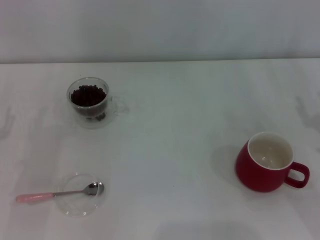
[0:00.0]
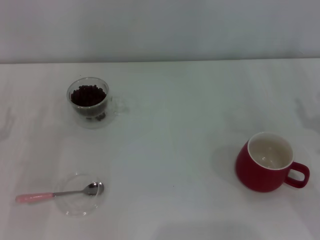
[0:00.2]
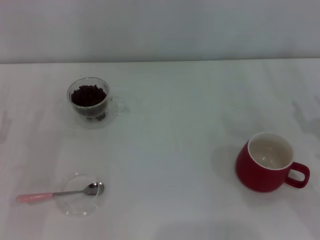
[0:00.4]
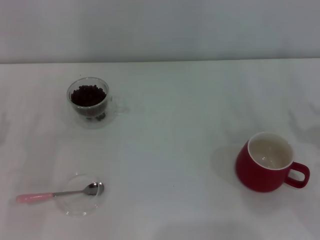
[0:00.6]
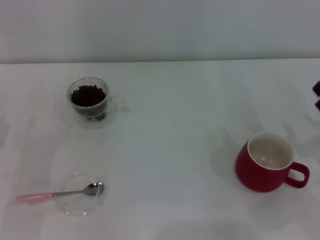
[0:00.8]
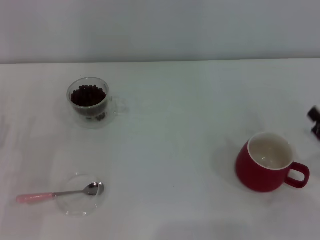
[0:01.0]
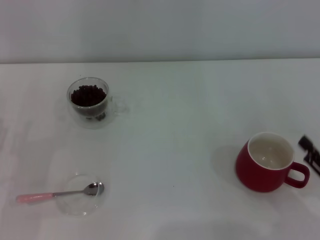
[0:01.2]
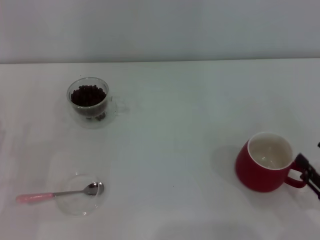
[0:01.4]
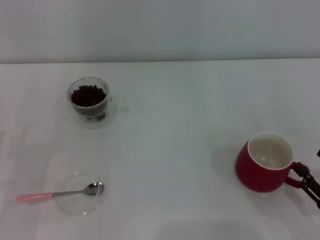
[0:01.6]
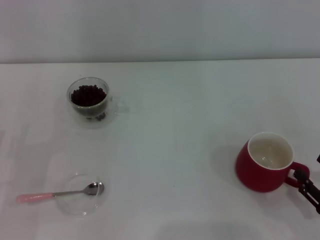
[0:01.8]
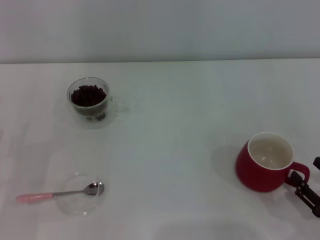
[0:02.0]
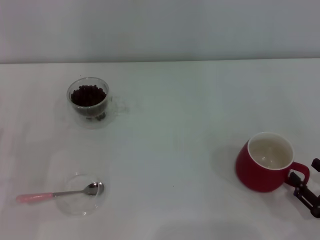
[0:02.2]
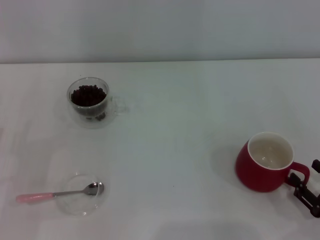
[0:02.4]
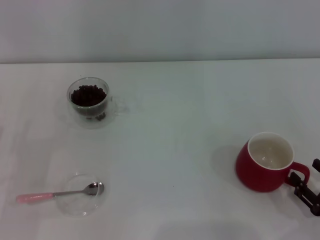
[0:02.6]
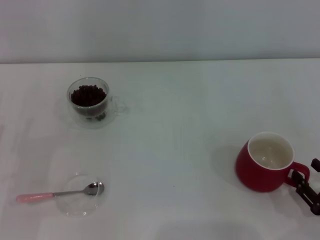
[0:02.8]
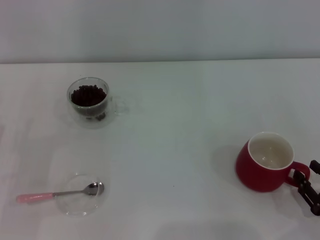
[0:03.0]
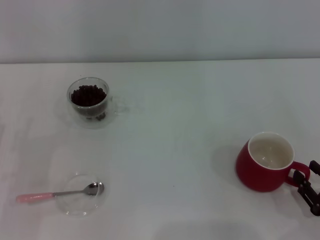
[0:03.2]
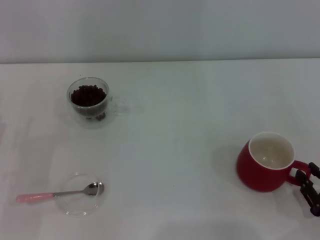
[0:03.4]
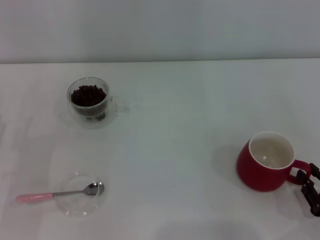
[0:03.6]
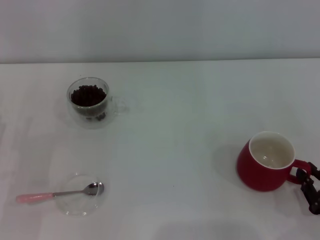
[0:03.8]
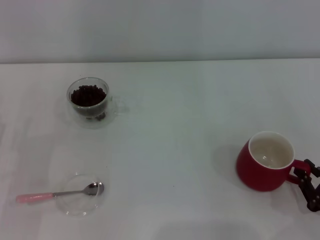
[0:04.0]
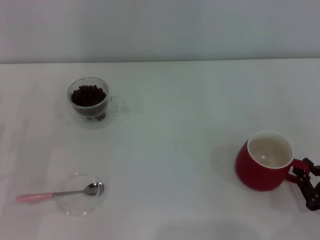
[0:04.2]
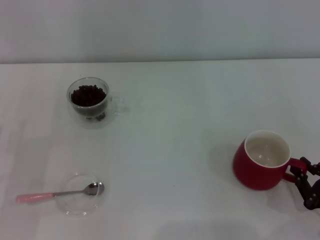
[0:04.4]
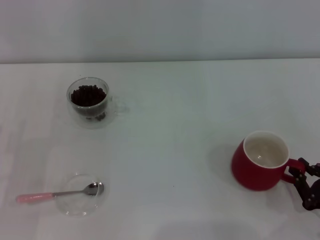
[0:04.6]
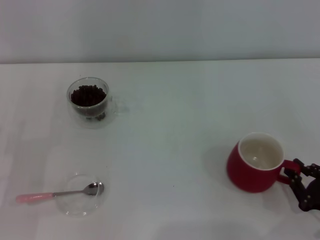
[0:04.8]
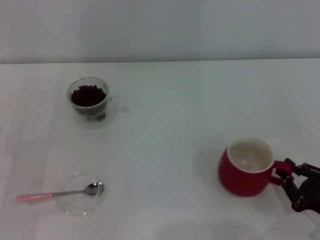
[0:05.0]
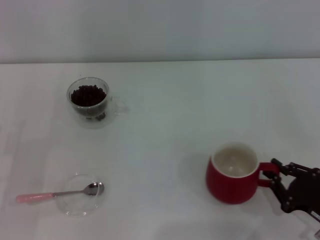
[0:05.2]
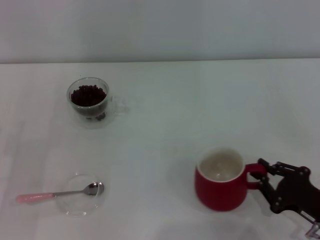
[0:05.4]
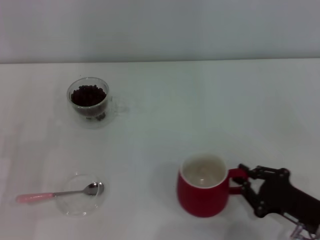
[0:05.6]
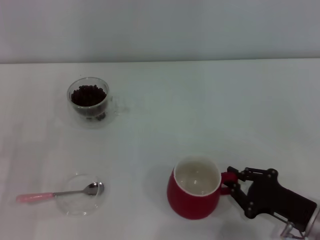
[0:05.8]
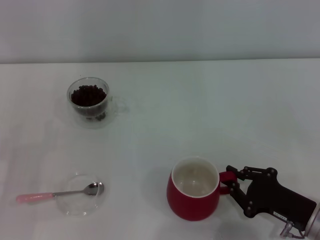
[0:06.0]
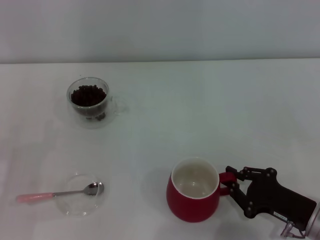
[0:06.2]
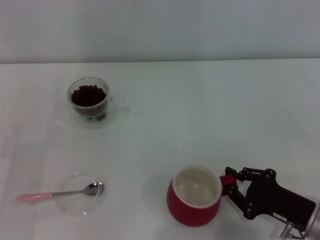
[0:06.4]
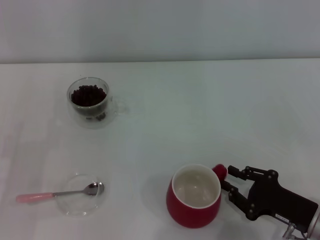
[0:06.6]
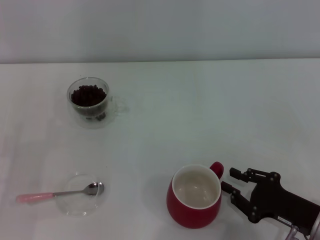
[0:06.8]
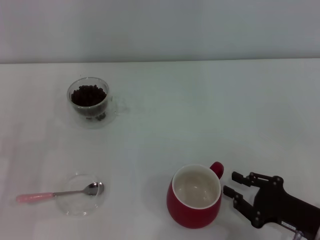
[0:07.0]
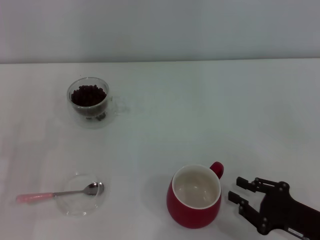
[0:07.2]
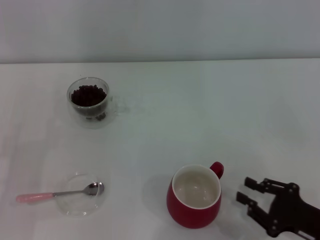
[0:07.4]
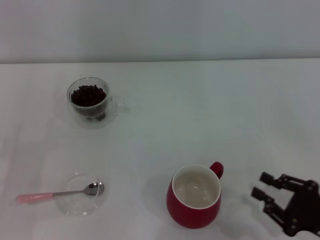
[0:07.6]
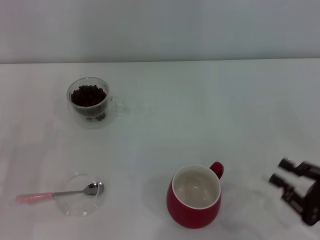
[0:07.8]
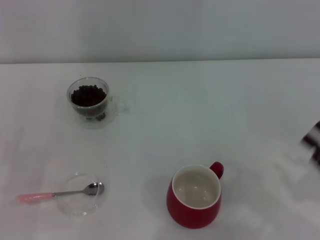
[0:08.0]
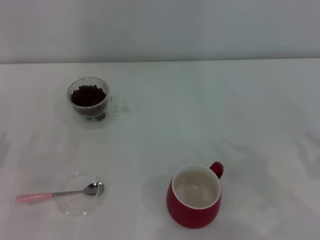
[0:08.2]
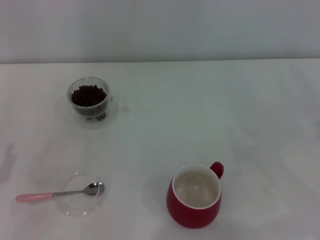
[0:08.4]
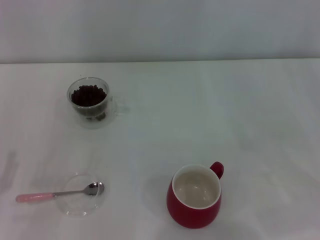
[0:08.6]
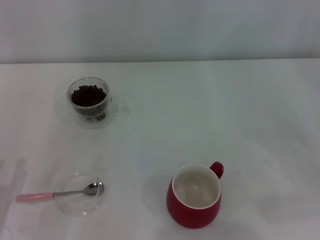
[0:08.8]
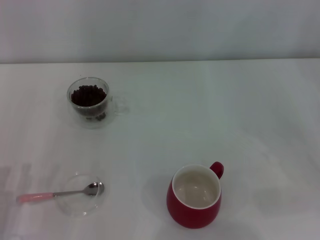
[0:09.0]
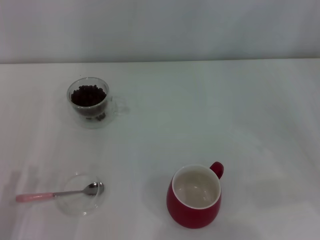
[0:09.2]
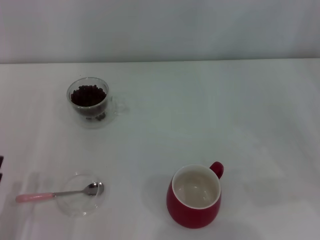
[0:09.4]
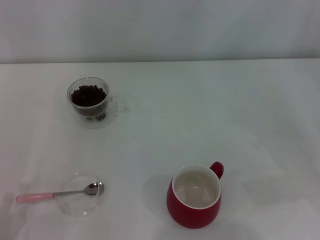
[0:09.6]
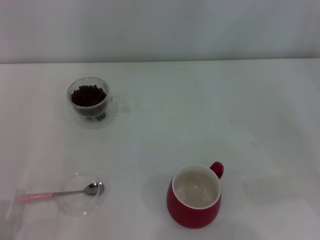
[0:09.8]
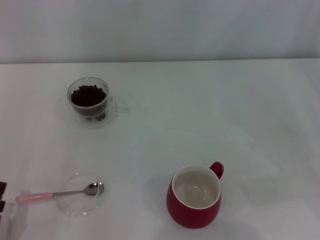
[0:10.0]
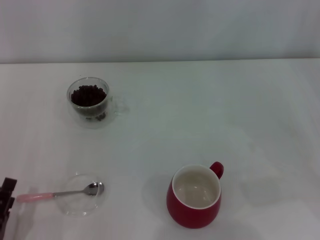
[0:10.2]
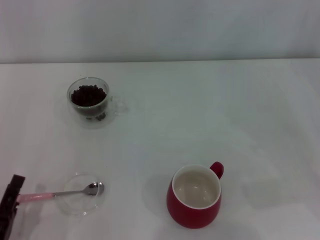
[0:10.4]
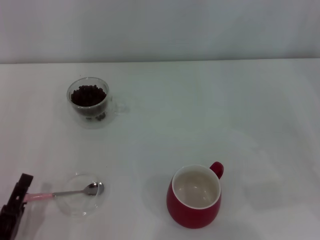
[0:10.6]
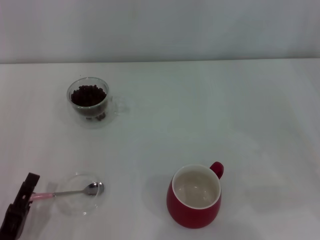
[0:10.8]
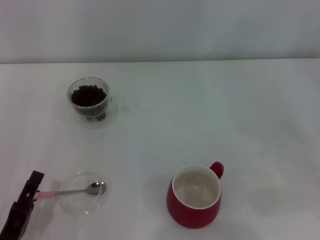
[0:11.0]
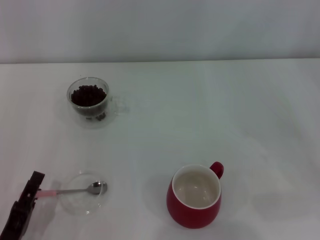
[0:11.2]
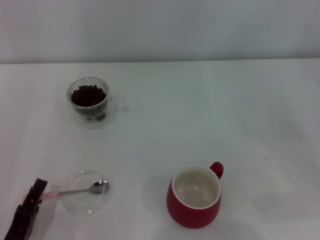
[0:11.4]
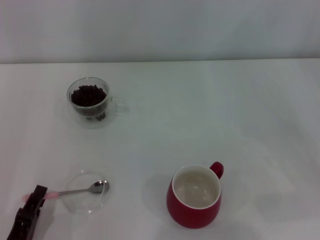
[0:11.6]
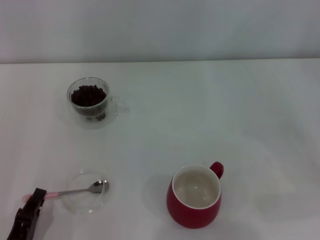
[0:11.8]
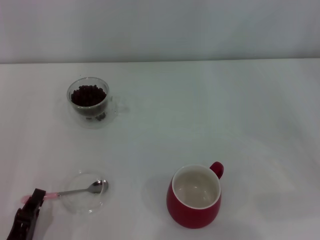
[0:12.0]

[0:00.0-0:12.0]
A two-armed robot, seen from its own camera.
Task of the whole recording: Use a pink spoon to take out the coffee beans from the glass and pour them into the red cup.
Step, 0:00.0 to 0:07.2: Move the cup to the center of view with the left gripper.
0:00.0 to 0:01.6: The right gripper moves backward and downward, about 15 cm.
0:01.6 to 0:03.0: There are only small adjustments of the grippers.
0:03.0 to 0:04.4: The right gripper closes its fingers.
0:04.4 to 0:06.0: The right gripper heads to the left, covering roughly 5 cm.
0:06.0 to 0:07.6: The right gripper changes place by some 5 cm.
0:07.6 to 0:09.0: The right gripper heads upward, to the right and forward, covering some 15 cm.
0:10.4 to 0:12.0: The left gripper closes.

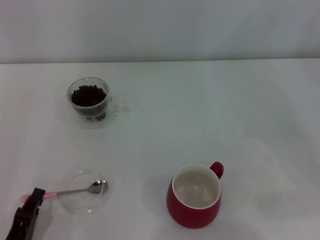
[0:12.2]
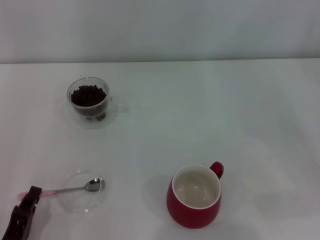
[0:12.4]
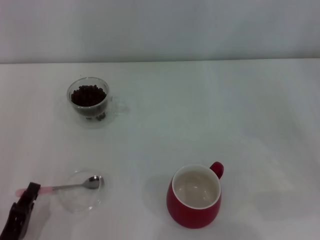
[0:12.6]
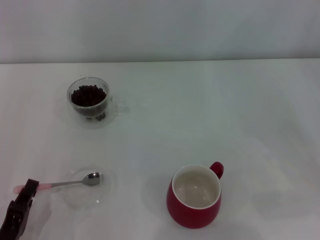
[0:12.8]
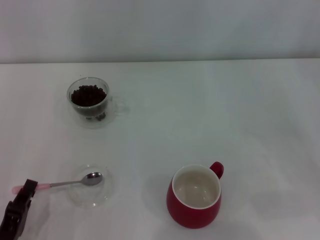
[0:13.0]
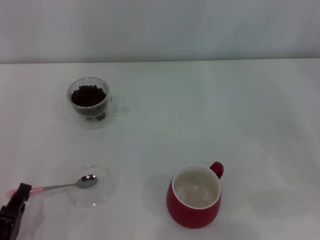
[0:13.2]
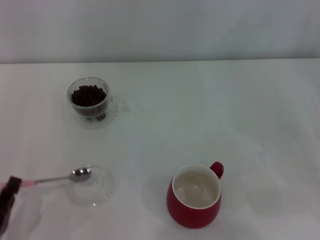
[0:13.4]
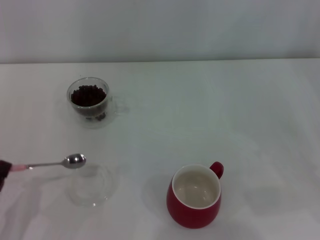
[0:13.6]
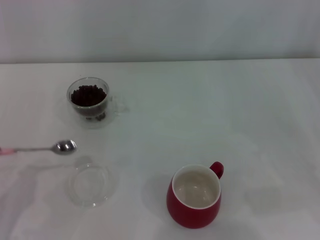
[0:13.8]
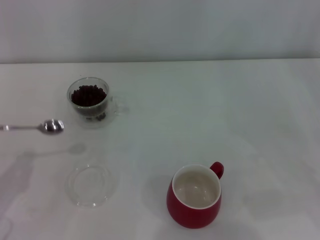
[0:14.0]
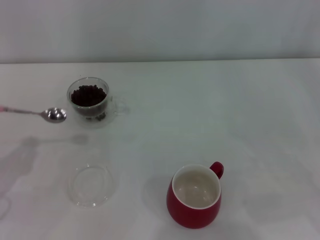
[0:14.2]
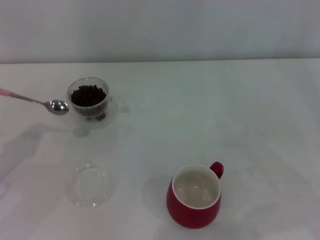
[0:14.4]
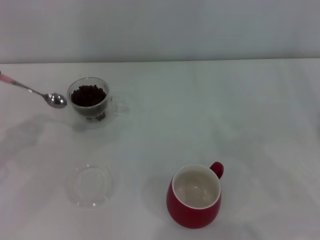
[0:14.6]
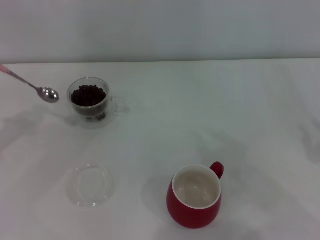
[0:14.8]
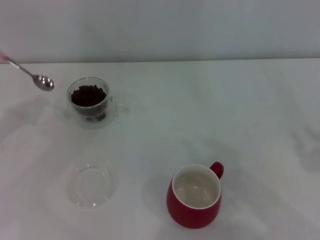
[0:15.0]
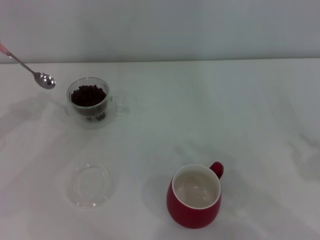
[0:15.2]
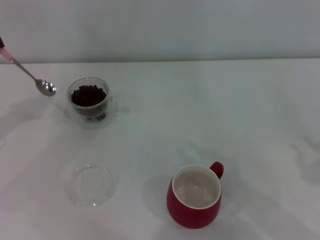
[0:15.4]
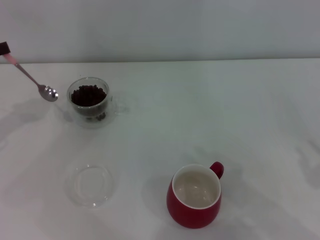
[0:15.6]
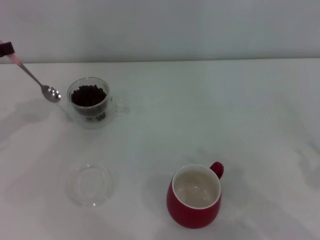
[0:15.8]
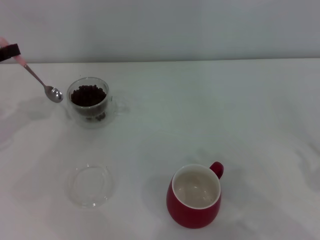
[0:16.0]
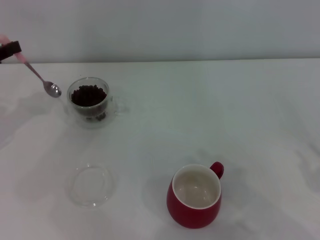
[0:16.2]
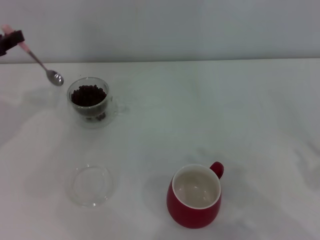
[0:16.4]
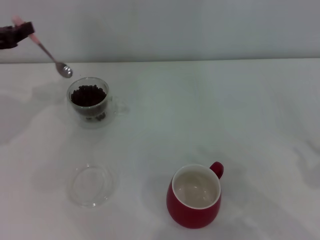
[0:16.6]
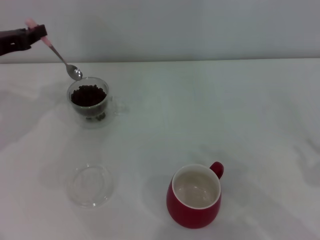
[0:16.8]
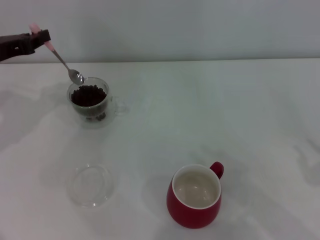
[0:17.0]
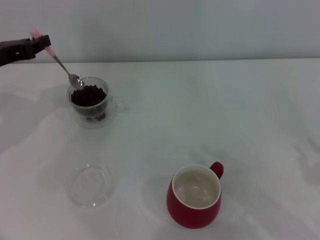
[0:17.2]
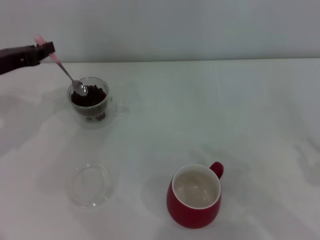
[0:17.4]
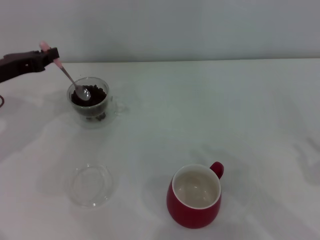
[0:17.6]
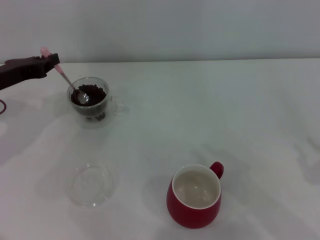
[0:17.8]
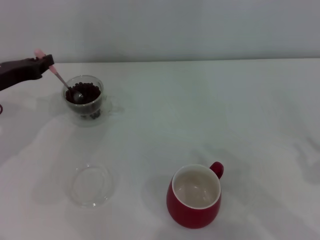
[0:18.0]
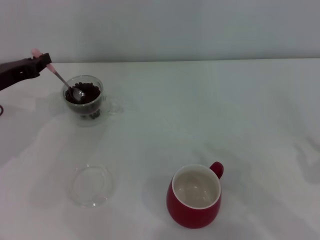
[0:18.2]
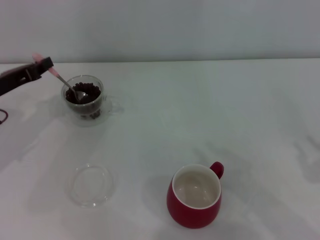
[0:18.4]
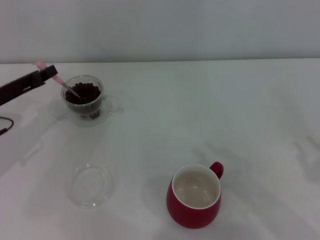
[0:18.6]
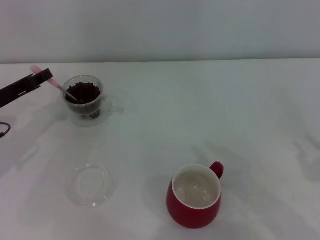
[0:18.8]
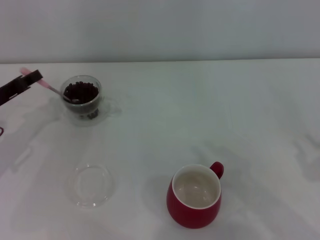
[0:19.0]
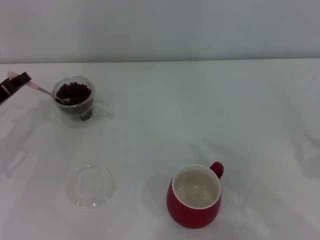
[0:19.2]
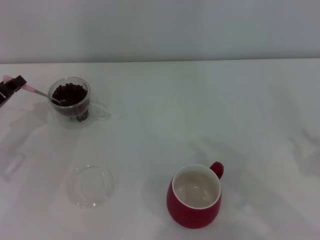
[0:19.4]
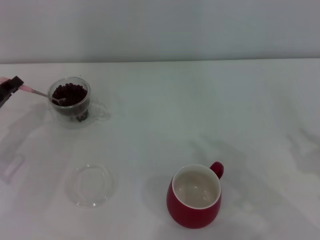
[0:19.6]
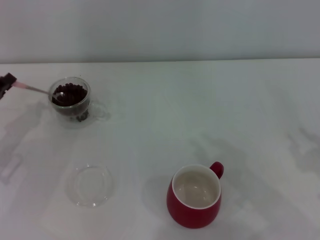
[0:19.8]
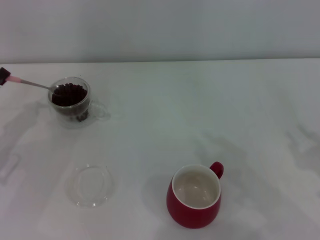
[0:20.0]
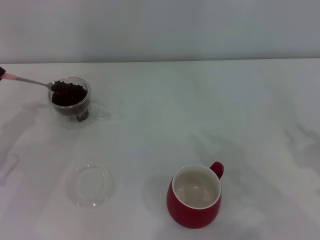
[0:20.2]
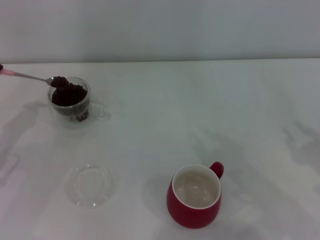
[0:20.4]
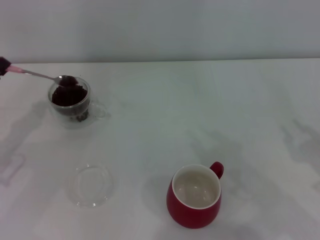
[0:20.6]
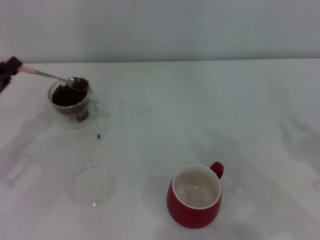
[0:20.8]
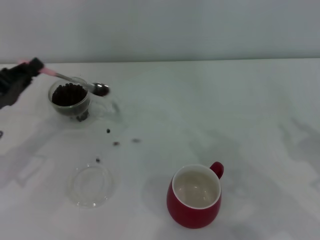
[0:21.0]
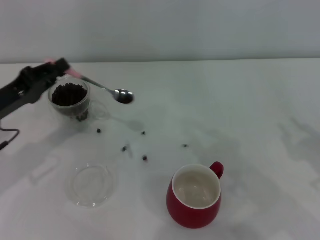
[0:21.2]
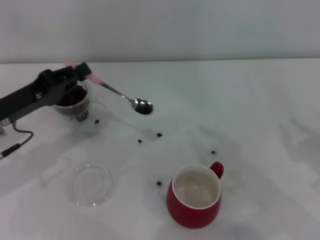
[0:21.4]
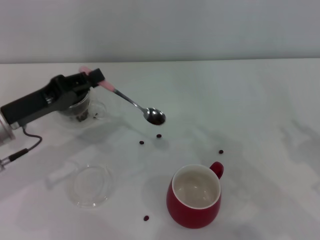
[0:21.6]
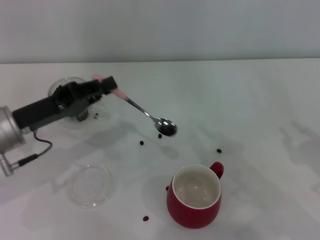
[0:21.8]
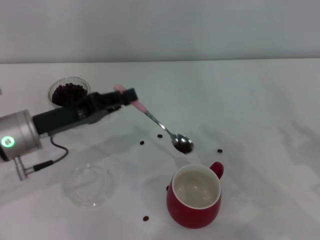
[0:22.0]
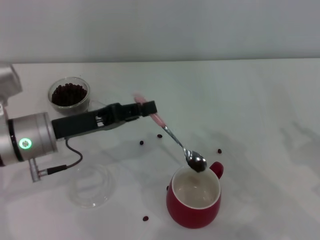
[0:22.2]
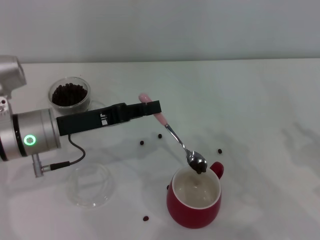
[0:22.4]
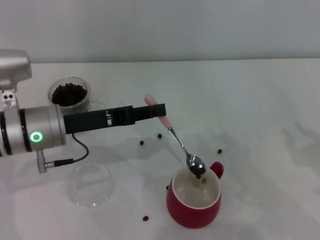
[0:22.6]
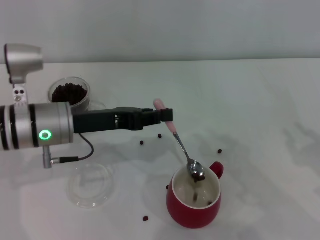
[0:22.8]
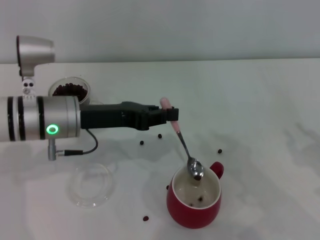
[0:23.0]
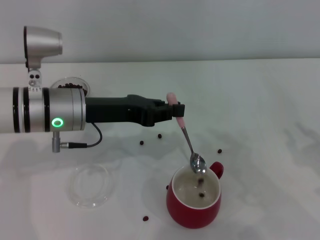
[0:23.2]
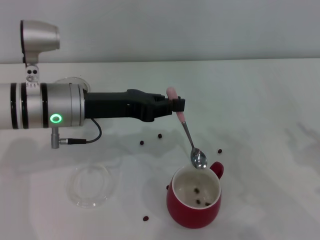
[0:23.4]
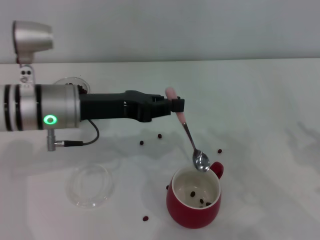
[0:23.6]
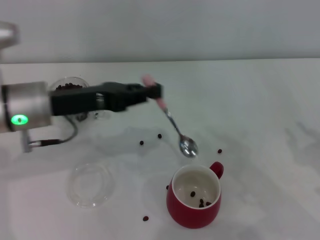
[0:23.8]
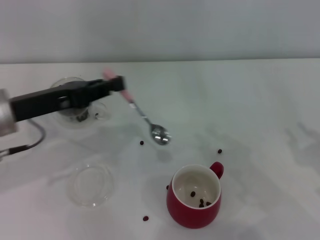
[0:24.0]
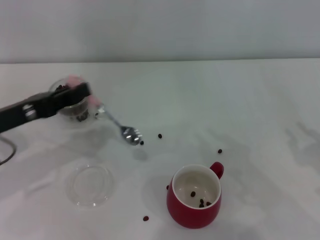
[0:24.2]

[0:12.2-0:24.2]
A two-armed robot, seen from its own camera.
Task of the whole recording: Use a pink spoon to take out the coffee beans from the glass and pour them into the red cup.
Step, 0:13.6 to 0:23.6: Scoop a spoonful of beans into the cup with the right gripper.
0:12.2 to 0:13.8: The left gripper shifts approximately 5 cm to the left.
0:13.8 to 0:15.2: The left gripper goes some 25 cm forward and upward.
0:15.2 to 0:16.6: The left gripper heads to the right, covering roughly 5 cm.
0:16.6 to 0:18.2: The left gripper moves downward, approximately 5 cm.
0:18.2 to 0:19.8: The left gripper moves backward, approximately 5 cm.
0:19.8 to 0:21.2: The left gripper changes place by some 5 cm.
0:21.2 to 0:22.6: The left gripper shifts some 10 cm to the right.
0:22.6 to 0:24.2: The left gripper moves to the left, roughly 10 cm.
